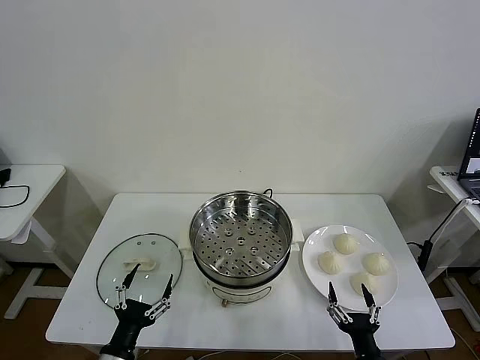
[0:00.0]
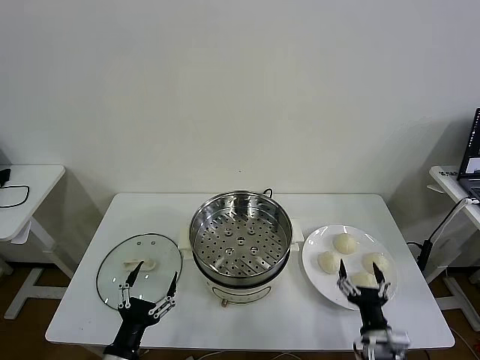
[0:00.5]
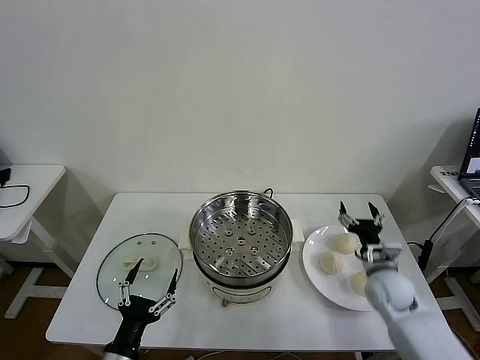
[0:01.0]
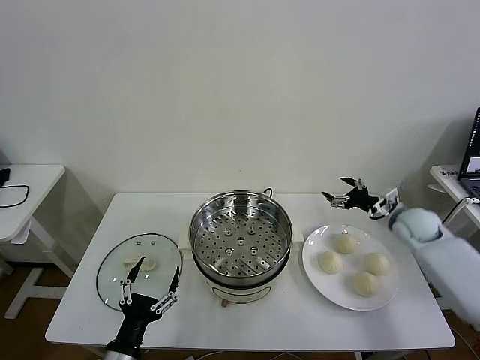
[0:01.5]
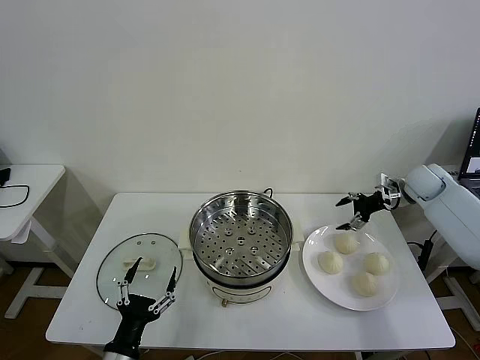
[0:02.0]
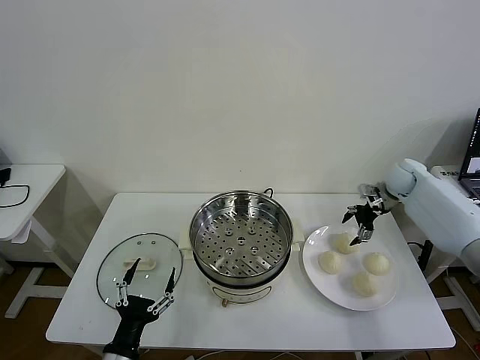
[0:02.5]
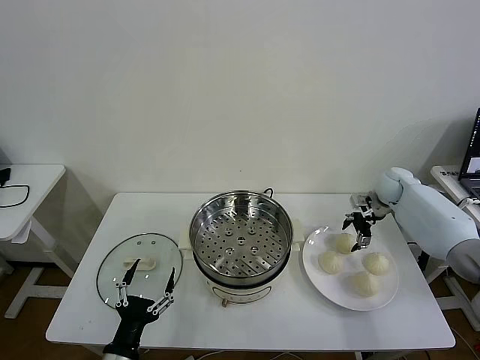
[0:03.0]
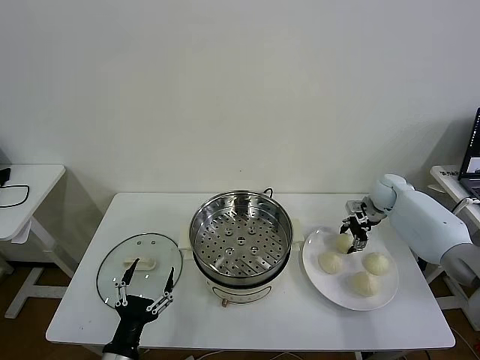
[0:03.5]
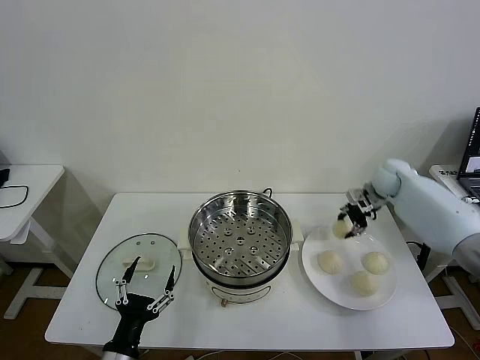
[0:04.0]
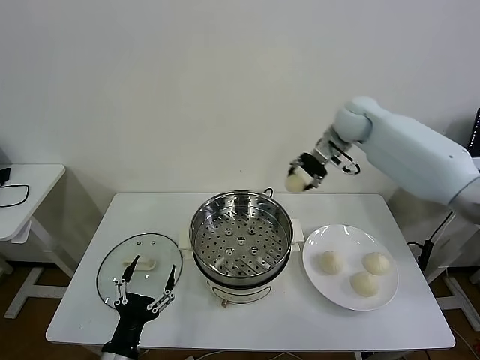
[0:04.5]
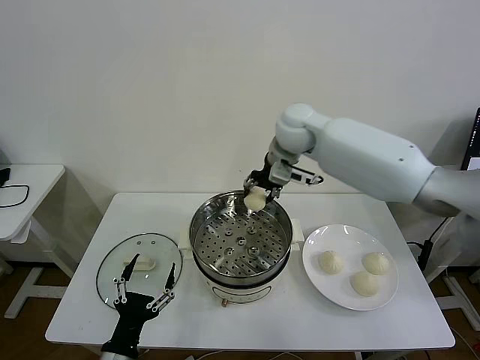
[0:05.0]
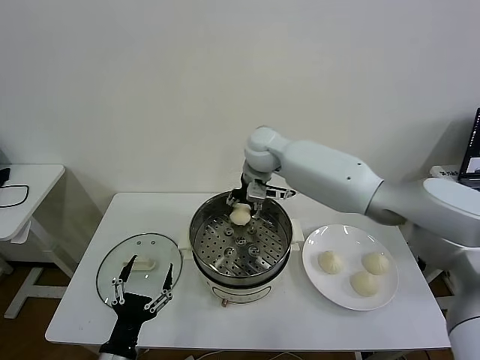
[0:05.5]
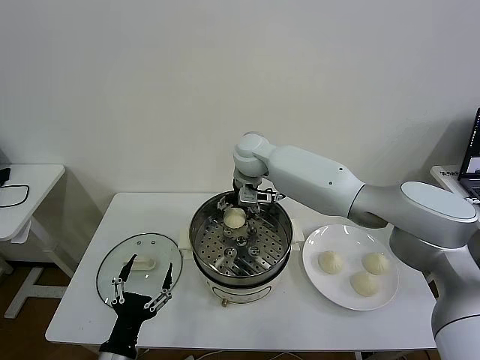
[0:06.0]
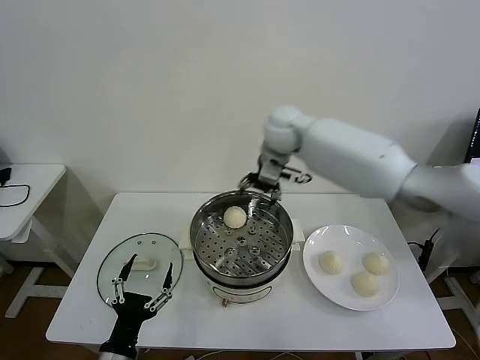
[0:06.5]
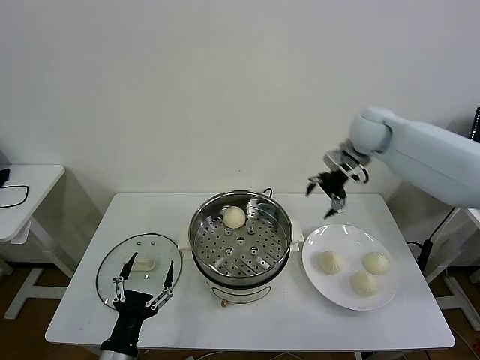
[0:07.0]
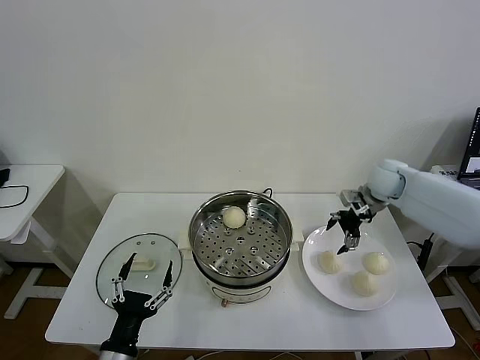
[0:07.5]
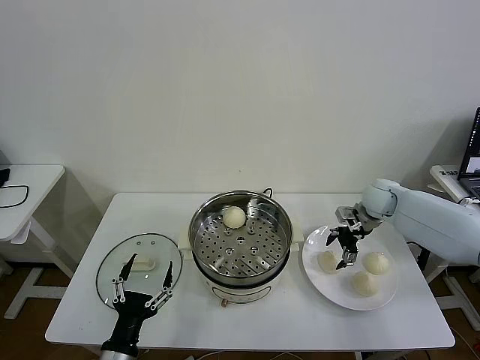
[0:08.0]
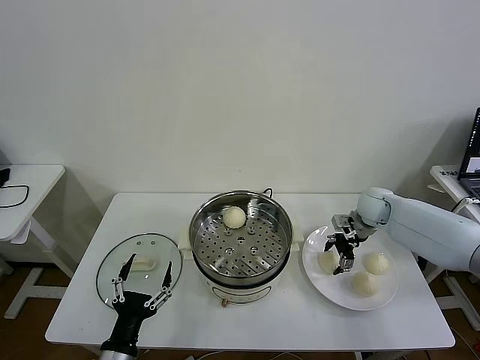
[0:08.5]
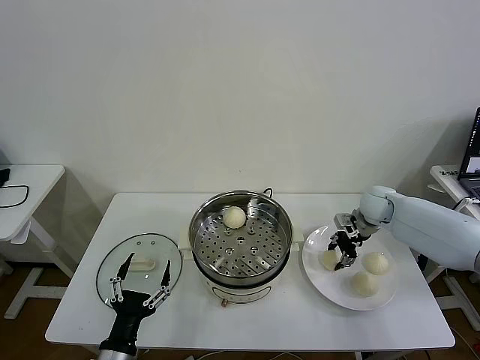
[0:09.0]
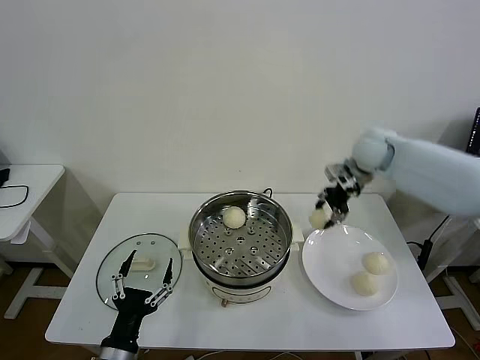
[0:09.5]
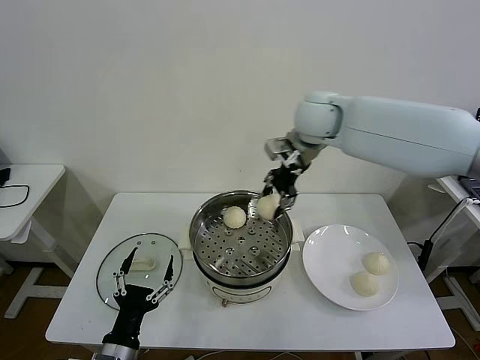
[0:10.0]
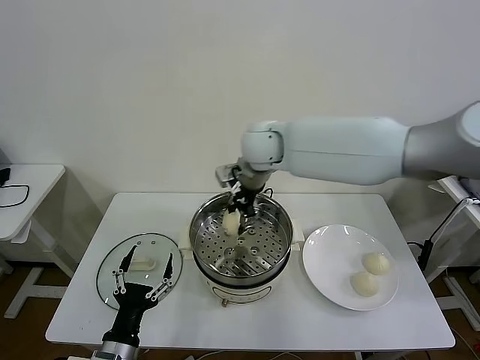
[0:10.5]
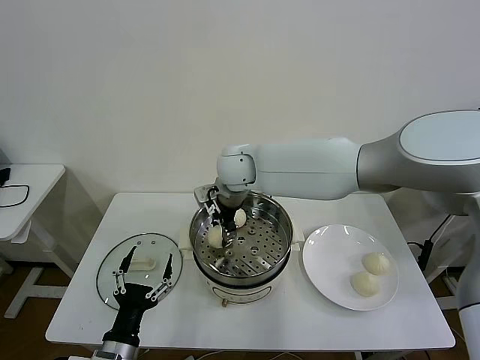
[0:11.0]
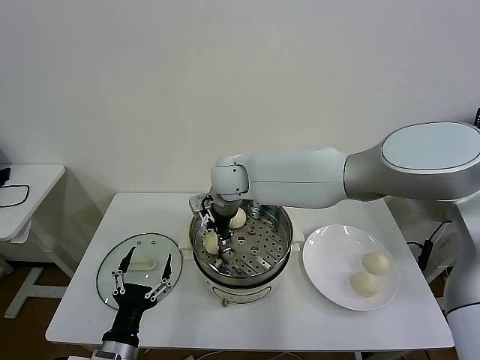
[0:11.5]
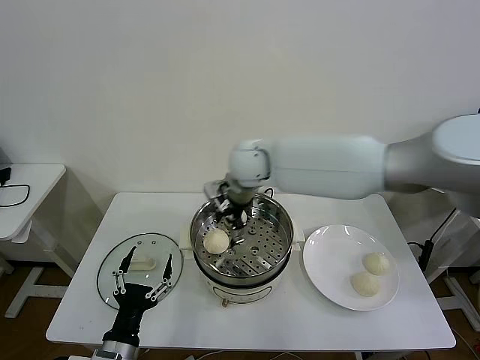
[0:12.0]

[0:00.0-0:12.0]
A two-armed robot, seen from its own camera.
Task of the whole recording: take steamed baozi put them in steamer then cover it.
Step, 0:00.0 to 0:03.5: Grasp the baozi in the plate with right gripper.
Step, 0:04.0 to 0:06.5: Place the baozi on the steamer with right gripper.
Step, 0:07.0 to 0:08.5: Grasp the baozi in the plate with right gripper.
0:02.0 to 0:04.0: The right gripper moves to the left, roughly 10 cm, goes downward and returns, roughly 5 cm each way, and closes up.
0:04.0 to 0:06.0: The right gripper goes about 35 cm to the left, and opens.
0:06.0 to 0:08.0: The right gripper moves to the right, roughly 35 cm.
0:08.0 to 0:10.0: The right gripper is displaced to the left and upward by approximately 35 cm, and closes up.
0:10.0 to 0:12.0: The right gripper is displaced to the left and downward by some 10 cm, and opens.

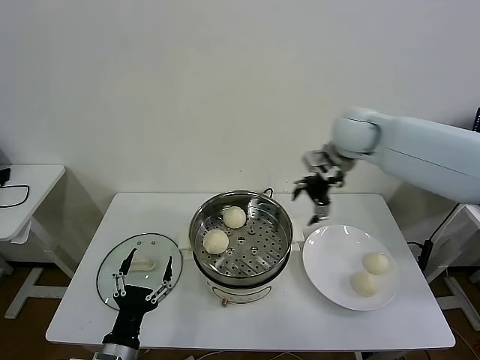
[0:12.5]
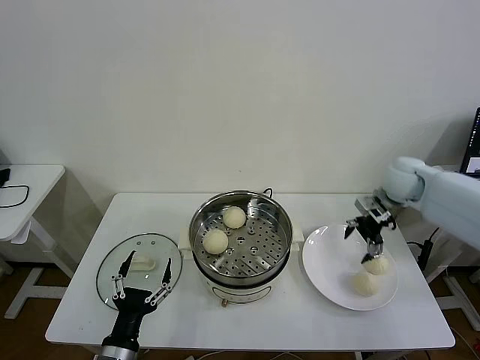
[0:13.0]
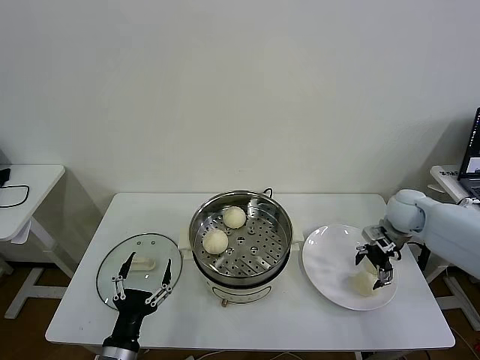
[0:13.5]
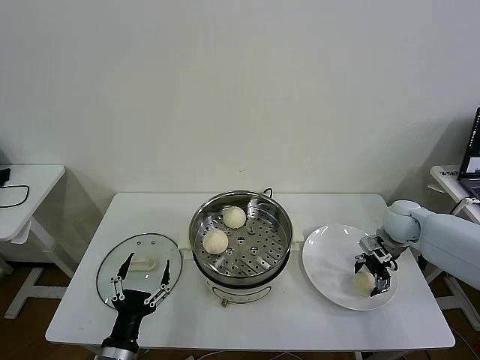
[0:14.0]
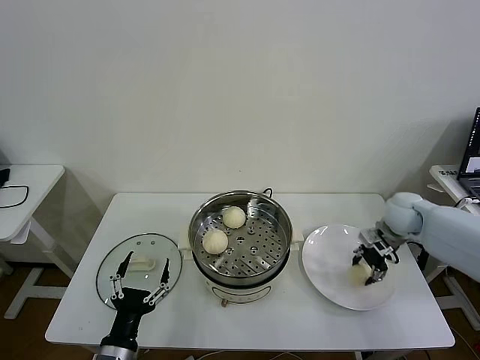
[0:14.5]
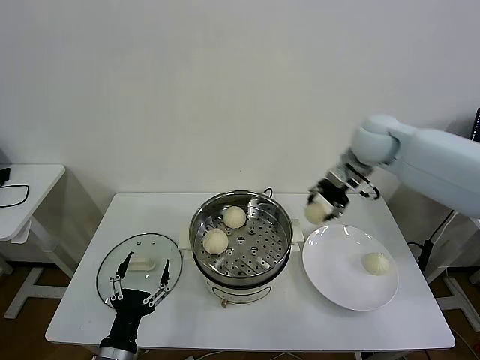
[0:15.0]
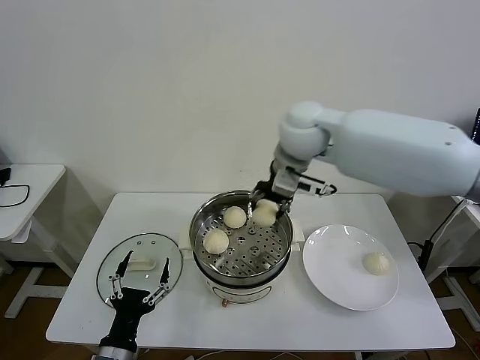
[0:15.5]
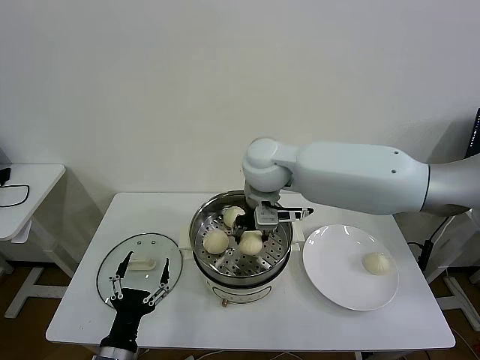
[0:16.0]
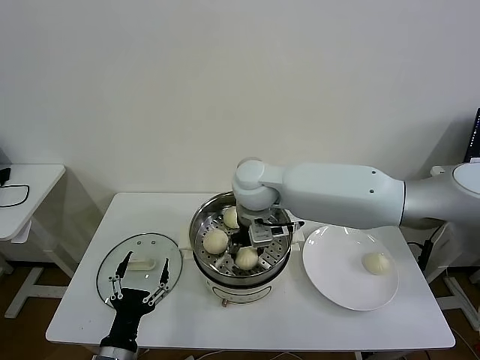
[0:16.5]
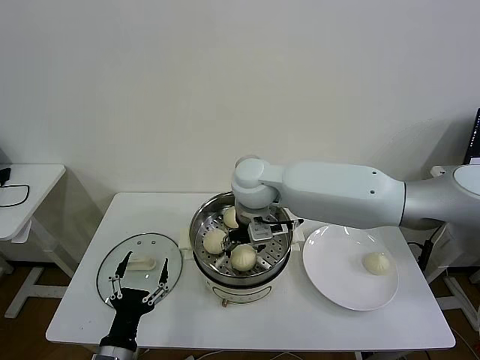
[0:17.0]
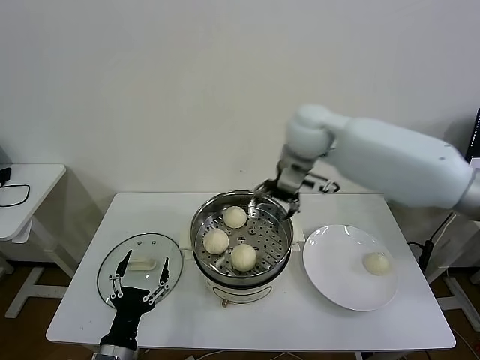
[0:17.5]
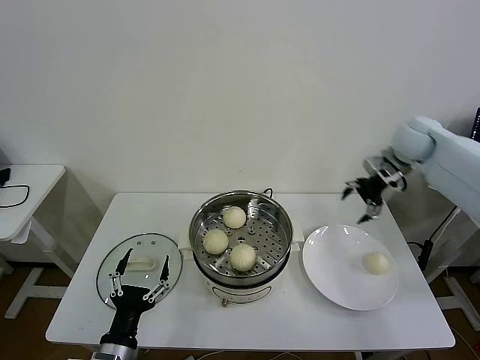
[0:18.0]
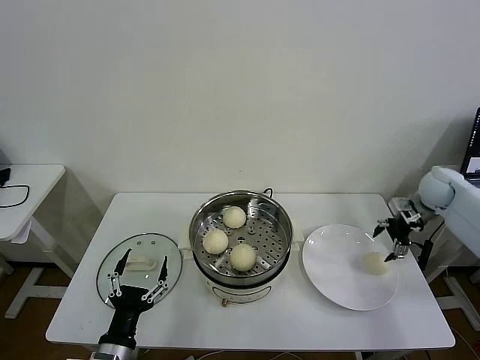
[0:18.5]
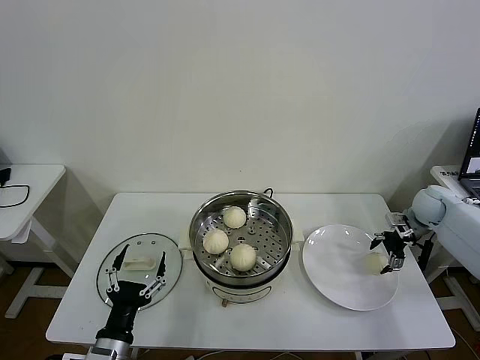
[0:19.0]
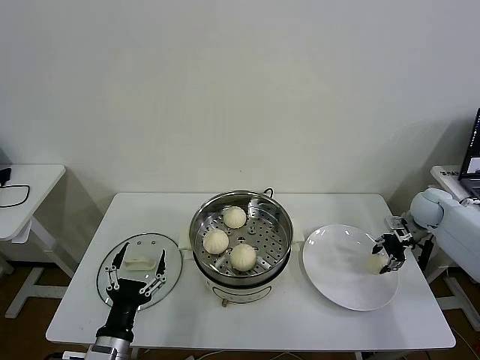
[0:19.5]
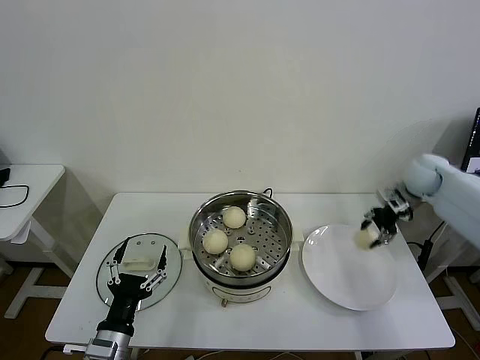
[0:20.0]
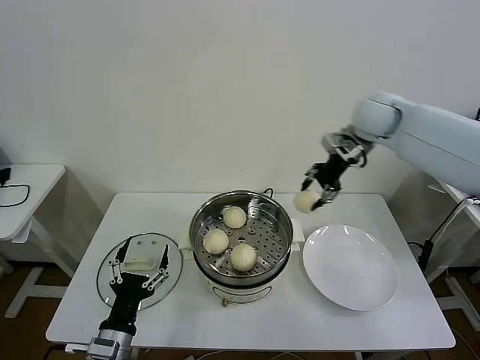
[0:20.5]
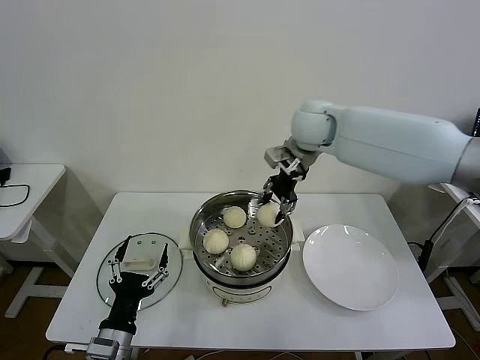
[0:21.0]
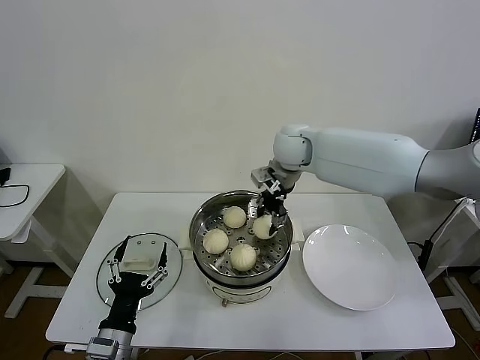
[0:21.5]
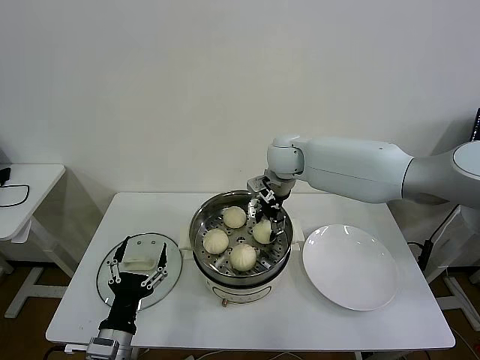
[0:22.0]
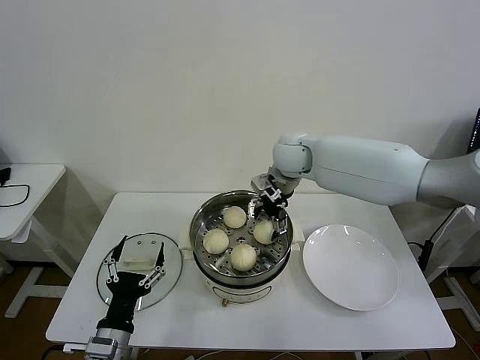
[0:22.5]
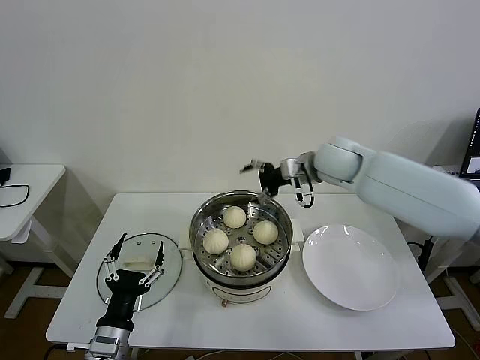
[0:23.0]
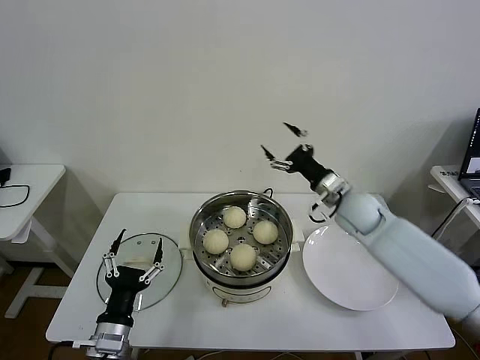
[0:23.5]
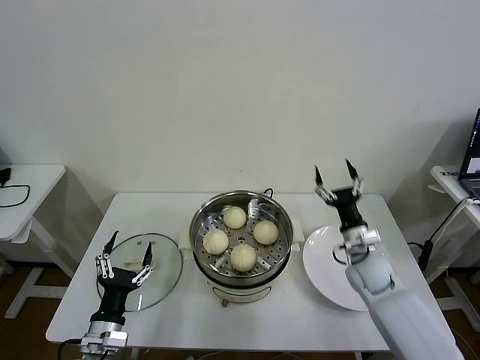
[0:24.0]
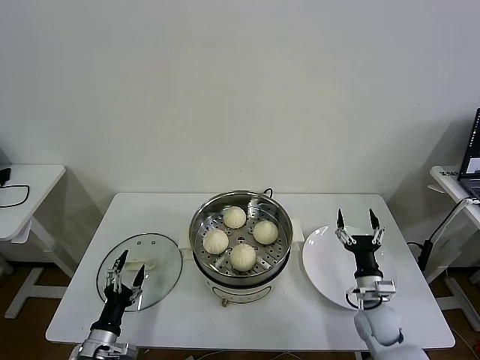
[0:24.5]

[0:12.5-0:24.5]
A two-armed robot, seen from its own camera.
Task of the whole recording: take steamed baozi put them in steamer then cover it.
Step, 0:12.5 to 0:14.0: Grasp the baozi in the plate with right gripper.
Step, 0:14.5 to 0:17.0: Place the baozi on the steamer with right gripper.
Step, 0:17.5 to 0:19.5: Grasp the baozi in the plate with right gripper.
Step, 0:20.0 to 0:22.5: Place the baozi on the steamer with right gripper.
0:12.5 to 0:14.5: The right gripper goes some 20 cm downward and to the right, and closes.
0:14.5 to 0:16.5: The right gripper heads to the left, covering roughly 35 cm.
0:16.5 to 0:18.5: The right gripper is displaced to the right by some 50 cm, and opens up.
0:18.5 to 0:20.5: The right gripper moves to the left and upward, approximately 30 cm, and closes.
0:20.5 to 0:22.5: The right gripper travels to the left and downward by approximately 20 cm, and opens up.
0:22.5 to 0:24.5: The left gripper heads downward and to the left, covering some 15 cm; the right gripper goes roughly 50 cm downward, backward and to the right.

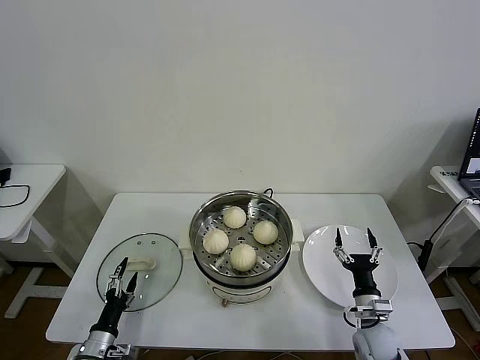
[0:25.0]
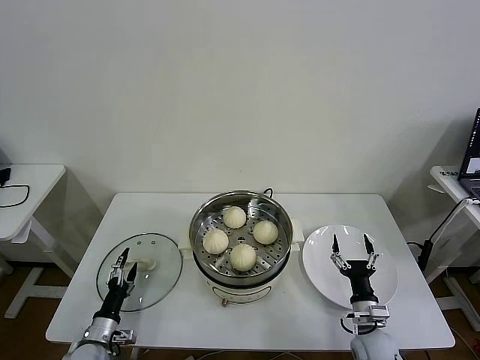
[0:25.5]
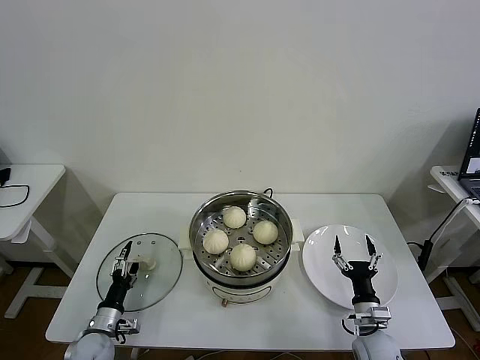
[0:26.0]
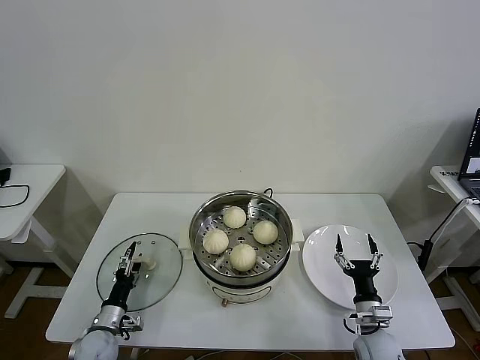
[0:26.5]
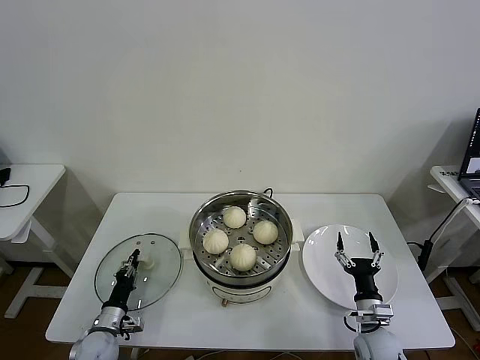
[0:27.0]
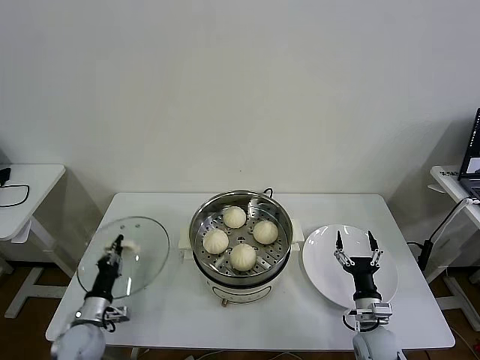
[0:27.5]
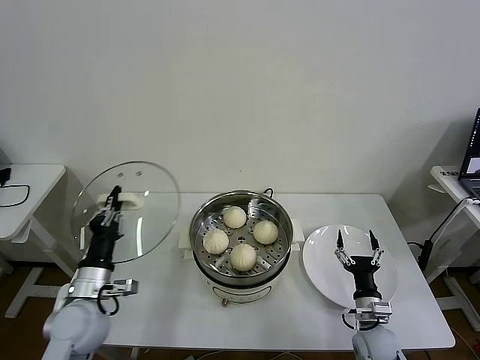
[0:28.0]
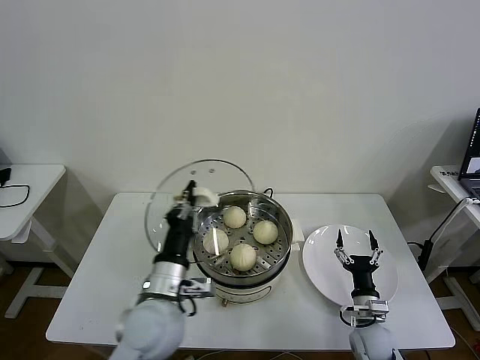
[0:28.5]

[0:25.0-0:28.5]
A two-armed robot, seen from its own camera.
Task of the whole recording: take steamed baozi put them in steamer then cover it.
Step, 0:25.0 to 0:27.0: Grasp the pot lid with left gripper.
0:25.0 to 0:27.0: The left gripper travels forward by some 5 cm, and closes up.
0:27.0 to 0:28.5: The left gripper moves upward and to the right, approximately 30 cm.
